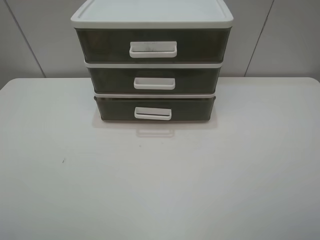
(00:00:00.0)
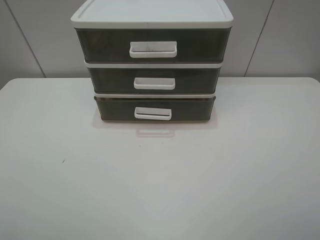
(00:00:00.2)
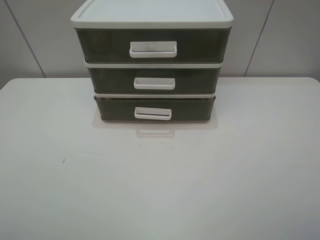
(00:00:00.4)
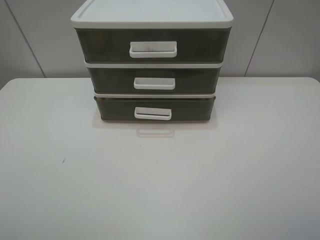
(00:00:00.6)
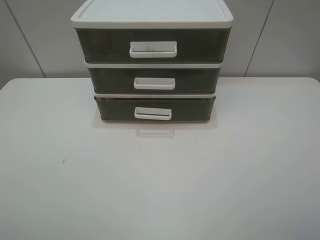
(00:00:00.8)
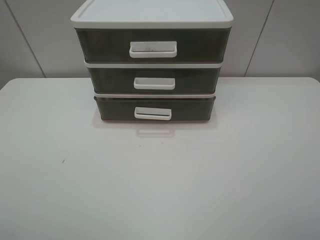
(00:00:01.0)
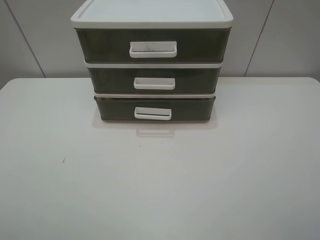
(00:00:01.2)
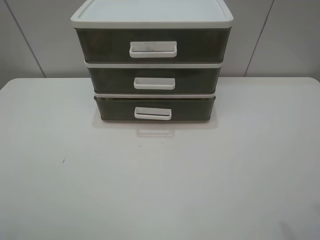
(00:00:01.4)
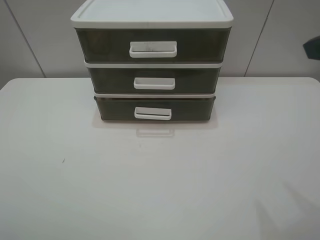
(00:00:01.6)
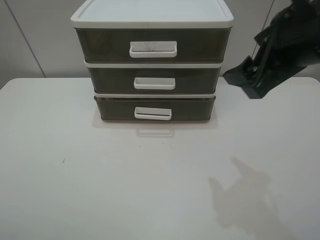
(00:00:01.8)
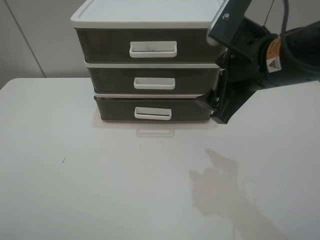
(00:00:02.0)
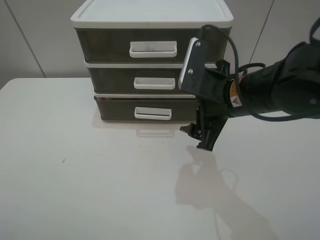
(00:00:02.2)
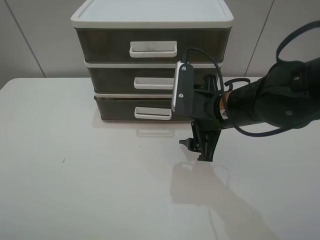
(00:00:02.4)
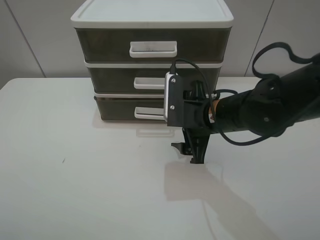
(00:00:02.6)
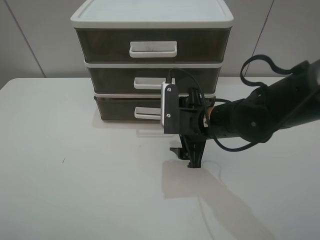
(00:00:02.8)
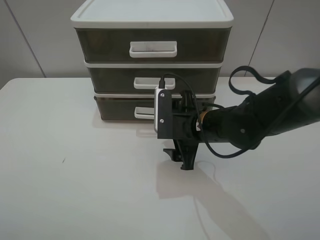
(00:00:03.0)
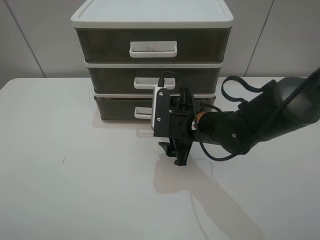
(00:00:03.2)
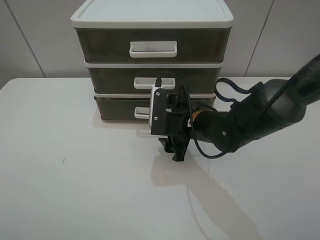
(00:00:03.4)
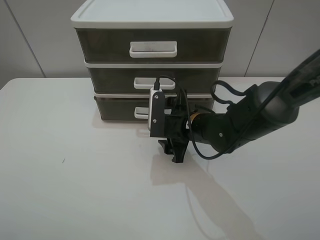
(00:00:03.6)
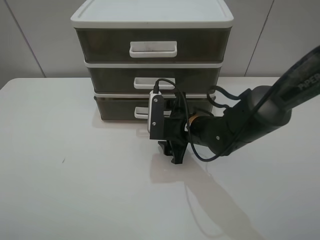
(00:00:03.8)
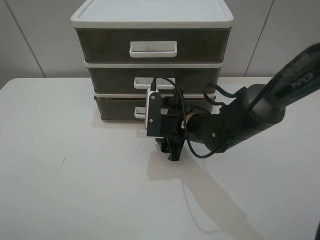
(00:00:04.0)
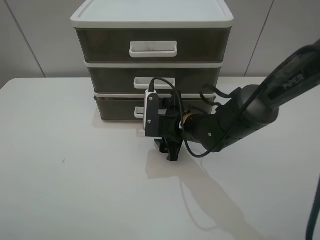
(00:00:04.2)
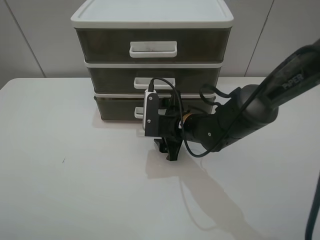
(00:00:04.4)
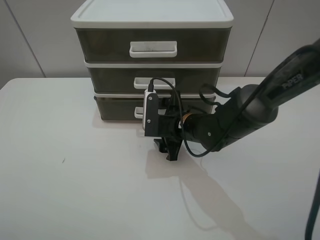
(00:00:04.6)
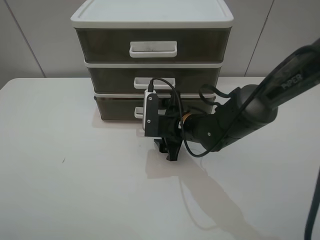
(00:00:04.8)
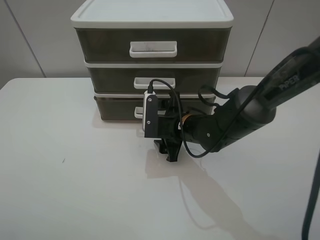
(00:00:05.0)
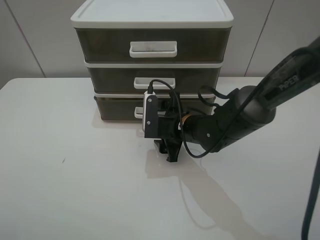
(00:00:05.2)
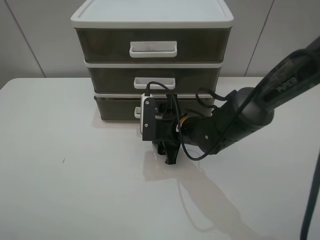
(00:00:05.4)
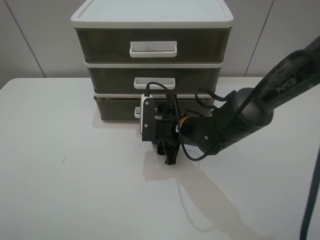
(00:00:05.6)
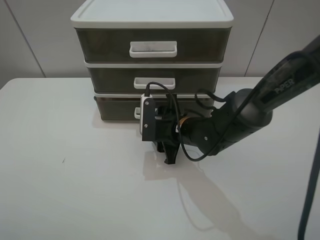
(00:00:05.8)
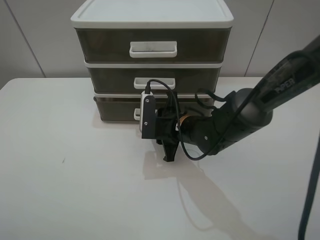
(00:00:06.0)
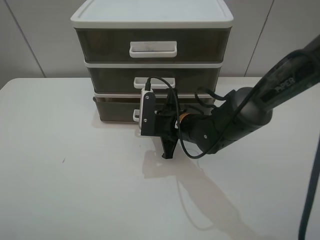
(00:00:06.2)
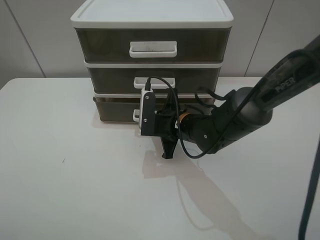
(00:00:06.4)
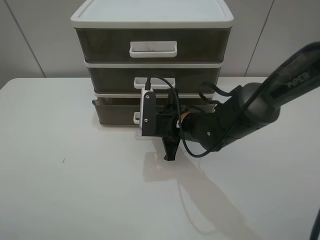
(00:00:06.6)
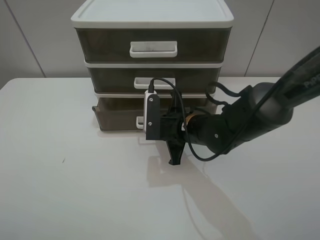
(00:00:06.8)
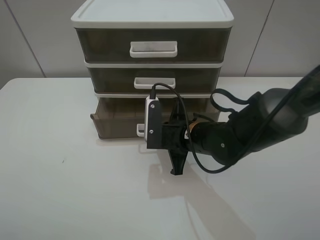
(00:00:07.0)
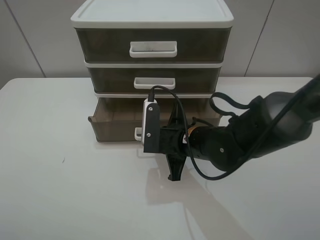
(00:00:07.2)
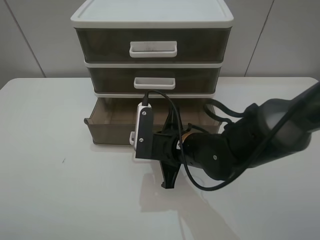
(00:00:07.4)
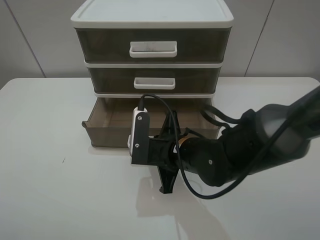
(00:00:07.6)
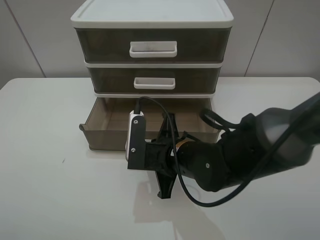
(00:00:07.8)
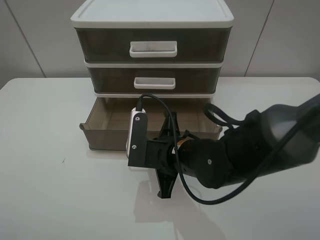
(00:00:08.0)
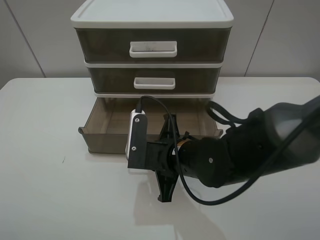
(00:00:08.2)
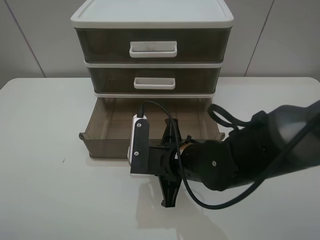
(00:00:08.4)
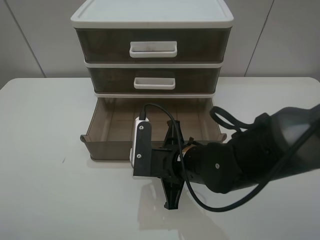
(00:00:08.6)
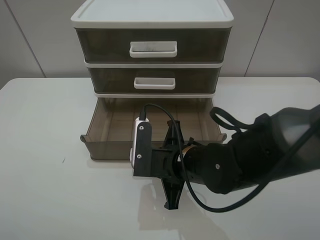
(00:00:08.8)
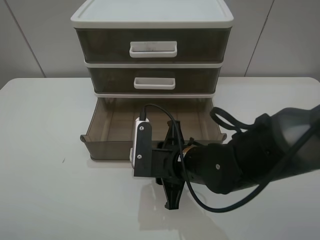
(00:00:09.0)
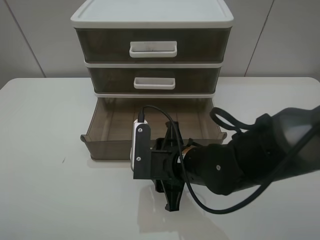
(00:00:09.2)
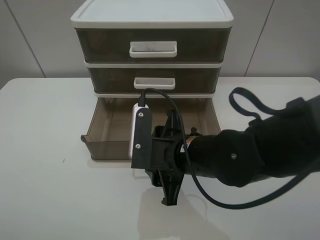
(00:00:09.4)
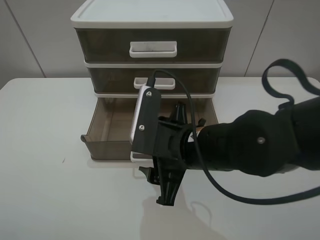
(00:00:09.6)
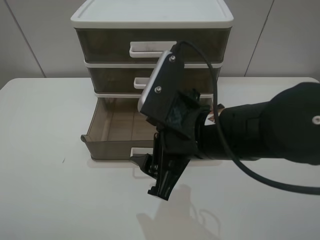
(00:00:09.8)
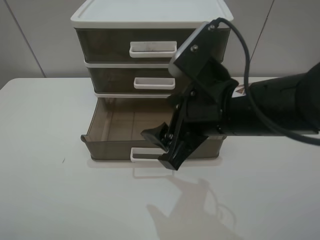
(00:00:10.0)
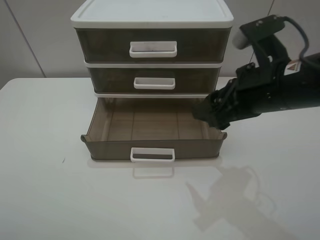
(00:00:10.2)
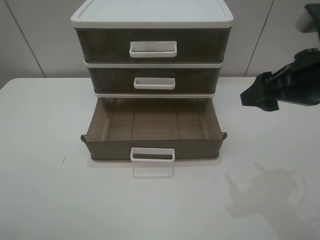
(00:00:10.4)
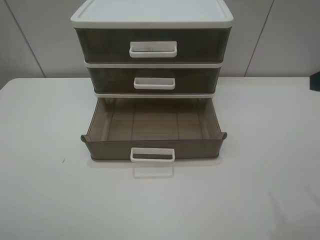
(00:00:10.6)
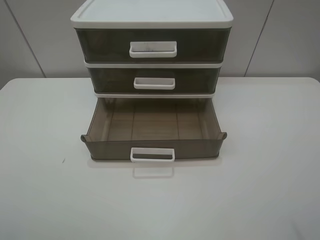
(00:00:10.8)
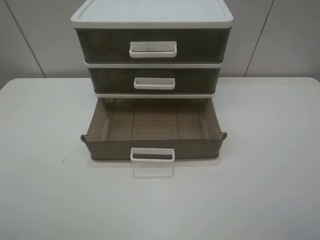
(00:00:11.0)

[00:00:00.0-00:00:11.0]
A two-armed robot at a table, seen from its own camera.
Task of the whole recording: open the bottom drawer.
Step, 00:00:00.0 to 00:00:06.2: Grab the bottom drawer with the right gripper.
Step, 00:00:06.4 to 00:00:09.2: Pull open the drawer with the right gripper.
00:00:01.6 to 00:00:03.2: The right gripper moves downward, to the left and forward, about 35 cm.
00:00:03.2 to 00:00:04.8: The grippers move only a little.
00:00:04.8 to 00:00:06.2: The right gripper closes.
00:00:06.2 to 00:00:07.8: The right gripper is displaced backward by about 10 cm.
00:00:07.8 to 00:00:09.4: The right gripper opens its fingers.
00:00:09.4 to 00:00:11.0: The right gripper shifts about 35 cm to the right, upward and backward.

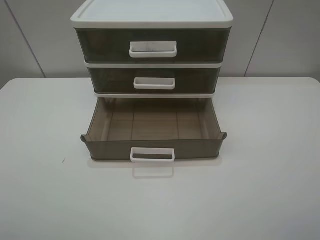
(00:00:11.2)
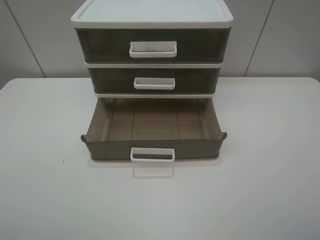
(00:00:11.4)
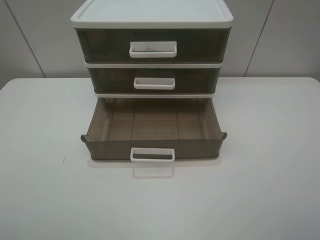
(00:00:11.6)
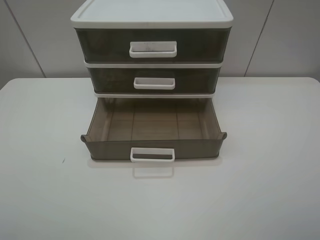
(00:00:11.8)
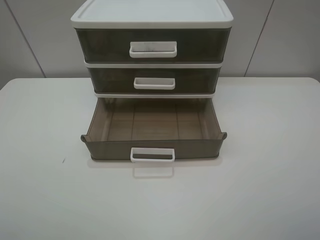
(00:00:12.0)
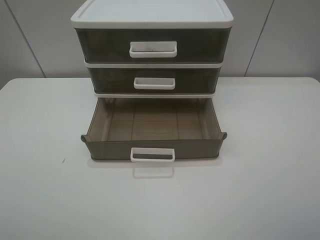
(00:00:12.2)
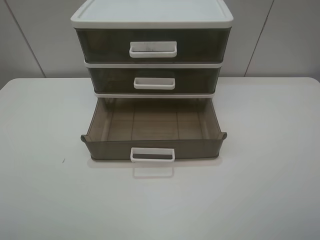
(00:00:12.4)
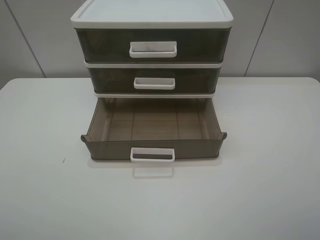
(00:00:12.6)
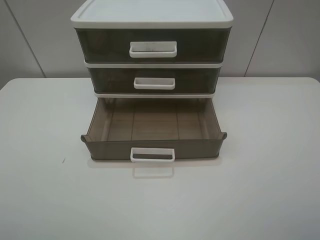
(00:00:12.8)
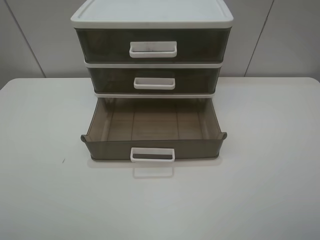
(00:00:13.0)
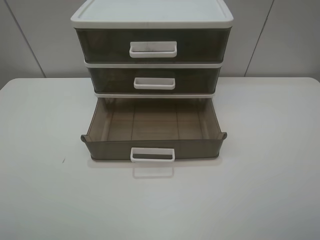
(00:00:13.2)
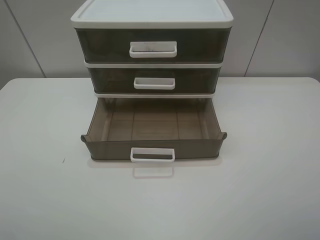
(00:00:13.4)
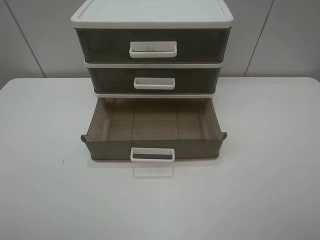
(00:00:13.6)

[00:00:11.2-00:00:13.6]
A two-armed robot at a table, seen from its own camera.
Task of the whole recording: open the bottom drawer.
00:00:12.4 to 00:00:13.6: Neither gripper changes place.
